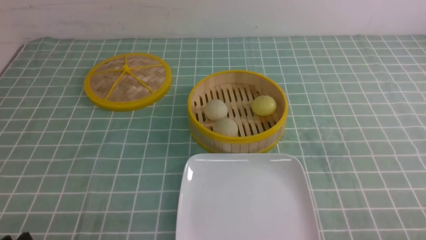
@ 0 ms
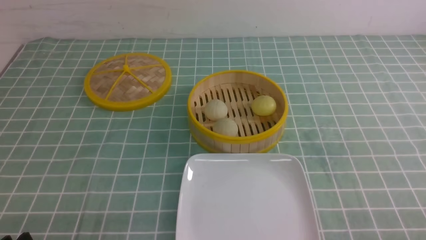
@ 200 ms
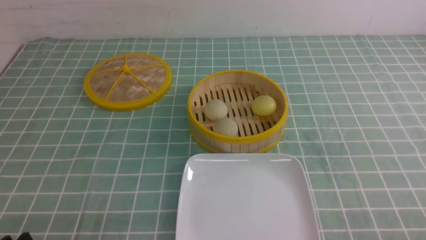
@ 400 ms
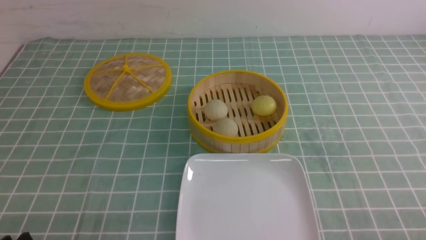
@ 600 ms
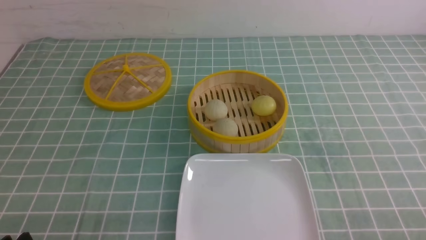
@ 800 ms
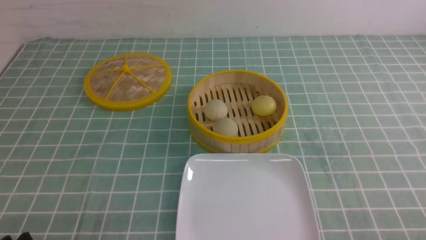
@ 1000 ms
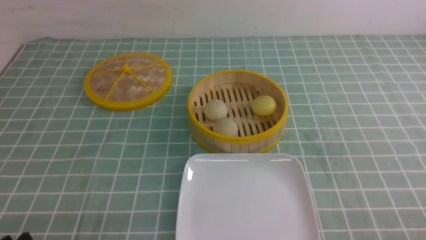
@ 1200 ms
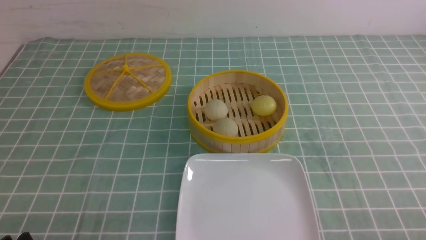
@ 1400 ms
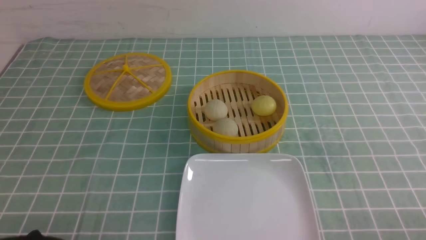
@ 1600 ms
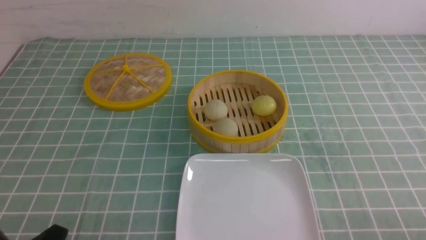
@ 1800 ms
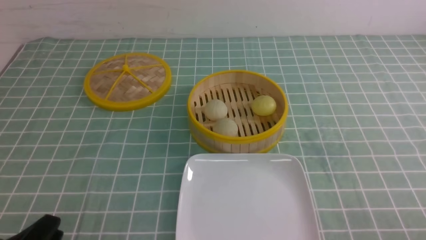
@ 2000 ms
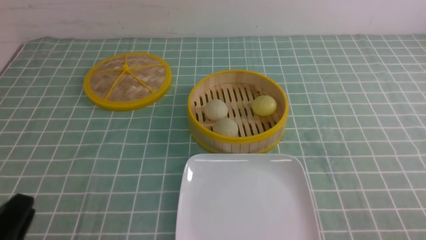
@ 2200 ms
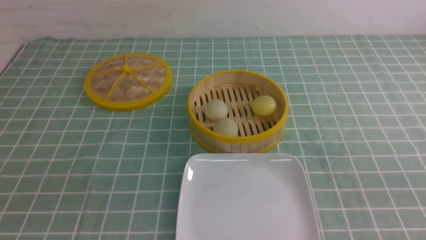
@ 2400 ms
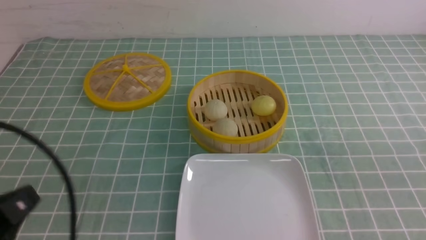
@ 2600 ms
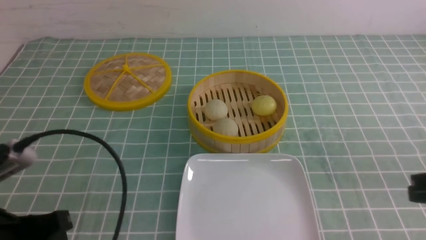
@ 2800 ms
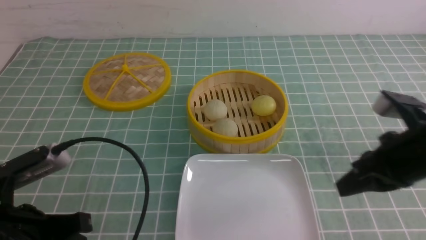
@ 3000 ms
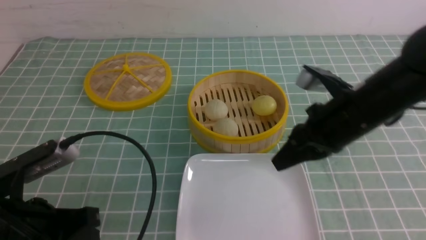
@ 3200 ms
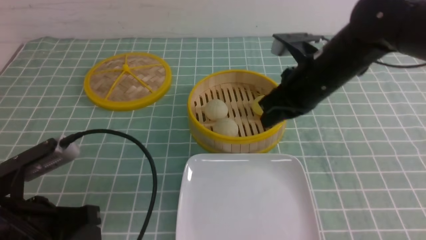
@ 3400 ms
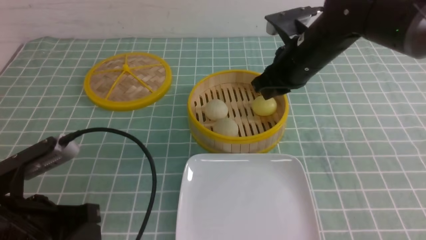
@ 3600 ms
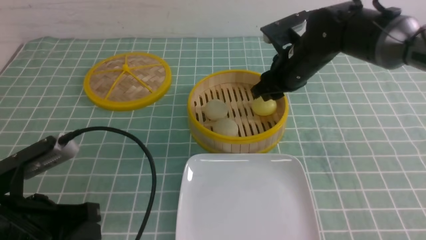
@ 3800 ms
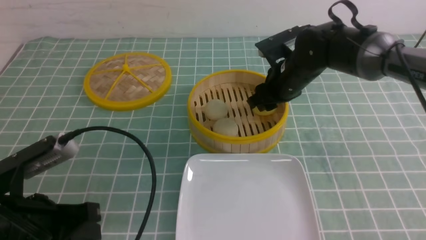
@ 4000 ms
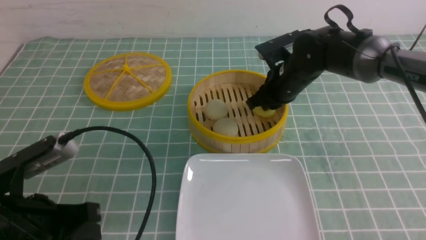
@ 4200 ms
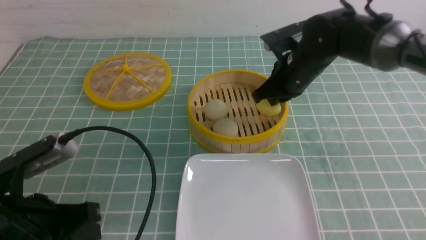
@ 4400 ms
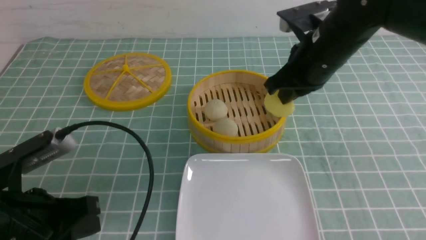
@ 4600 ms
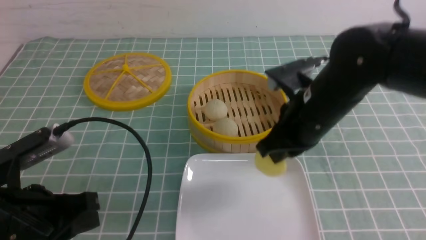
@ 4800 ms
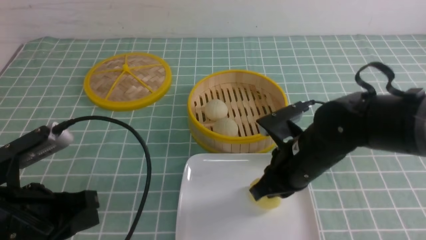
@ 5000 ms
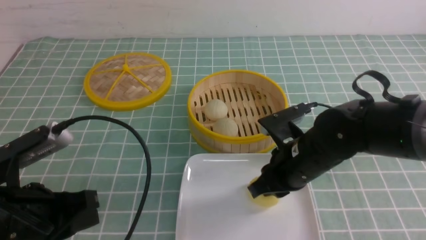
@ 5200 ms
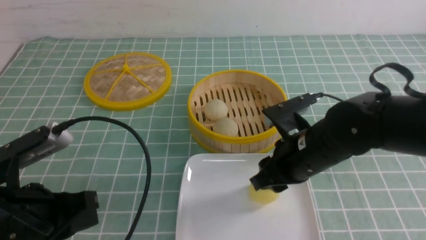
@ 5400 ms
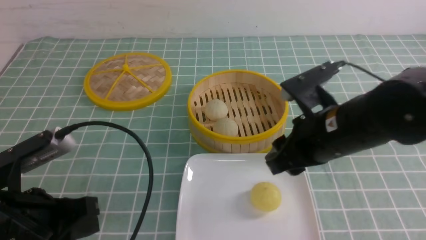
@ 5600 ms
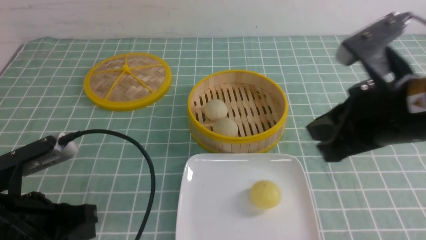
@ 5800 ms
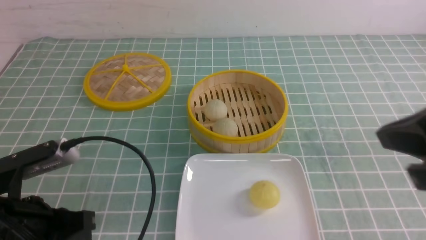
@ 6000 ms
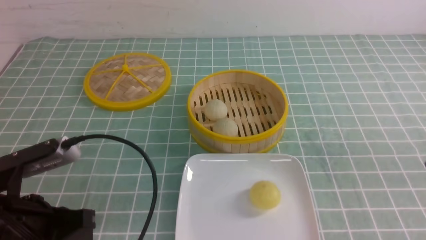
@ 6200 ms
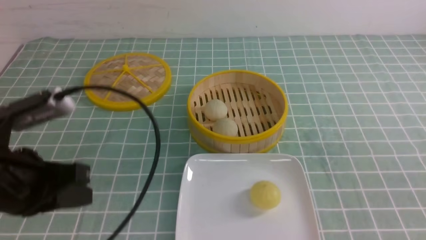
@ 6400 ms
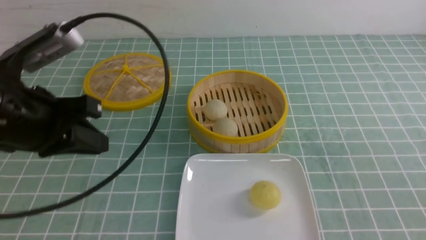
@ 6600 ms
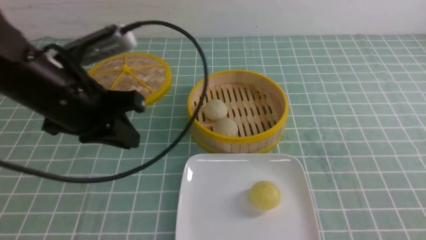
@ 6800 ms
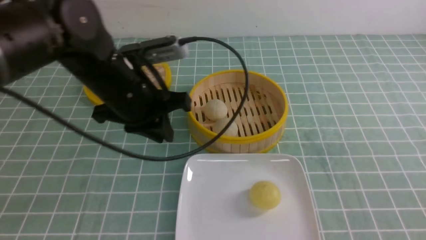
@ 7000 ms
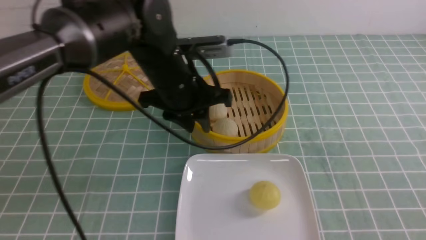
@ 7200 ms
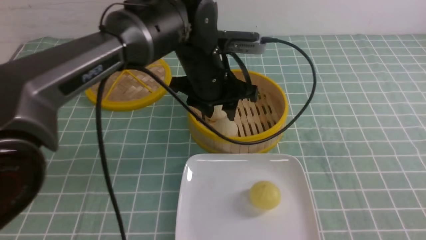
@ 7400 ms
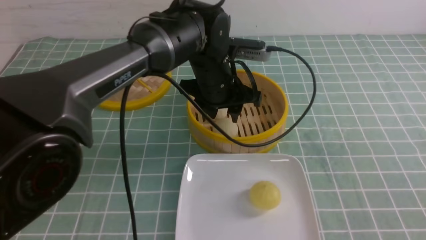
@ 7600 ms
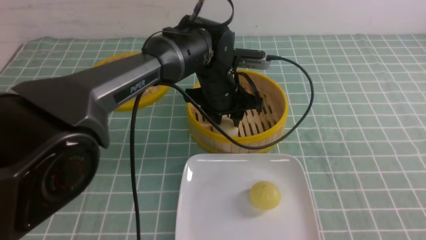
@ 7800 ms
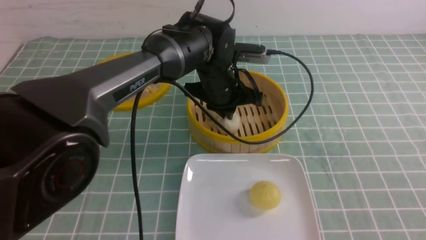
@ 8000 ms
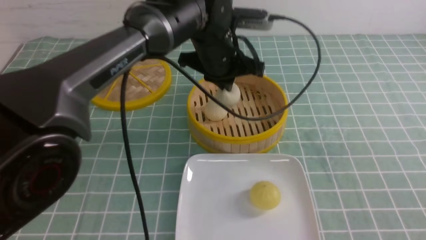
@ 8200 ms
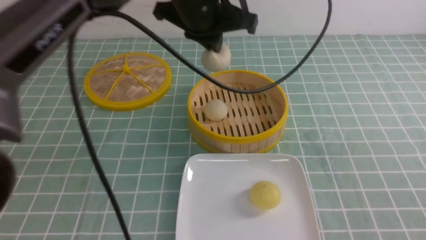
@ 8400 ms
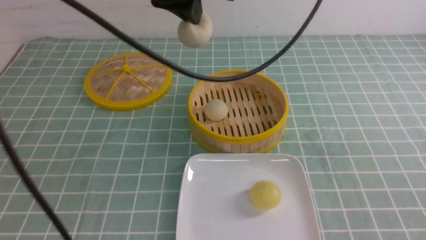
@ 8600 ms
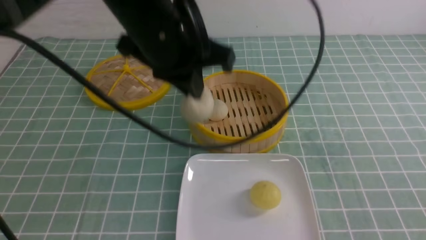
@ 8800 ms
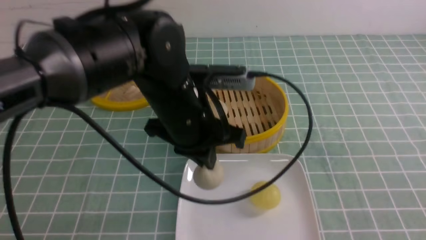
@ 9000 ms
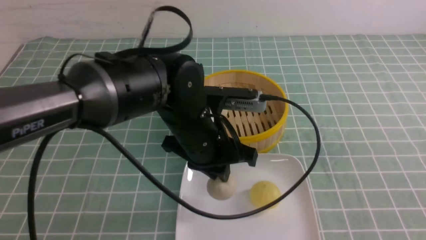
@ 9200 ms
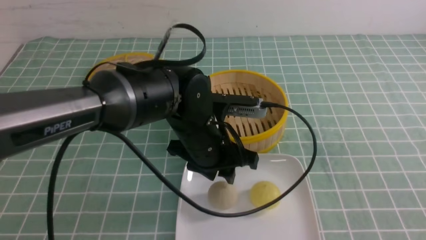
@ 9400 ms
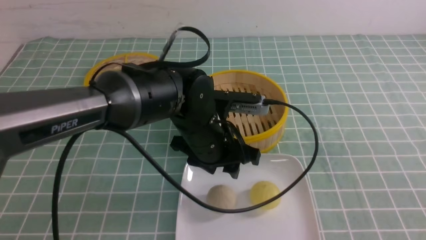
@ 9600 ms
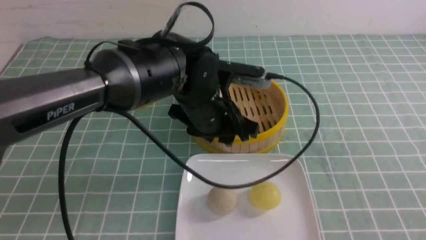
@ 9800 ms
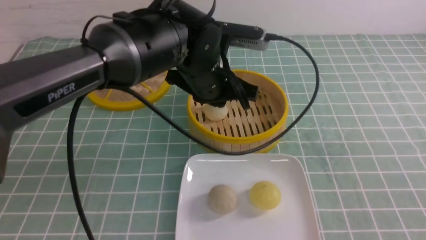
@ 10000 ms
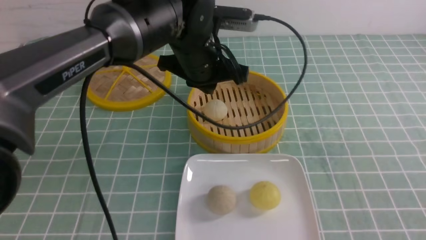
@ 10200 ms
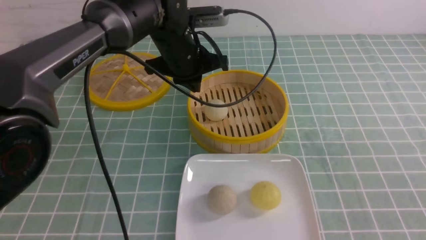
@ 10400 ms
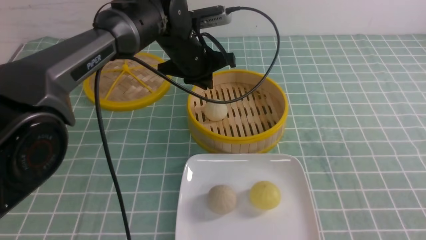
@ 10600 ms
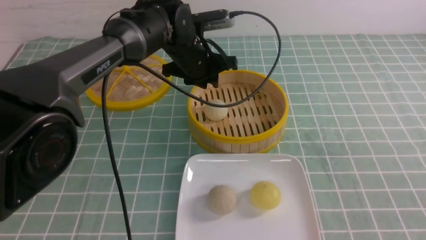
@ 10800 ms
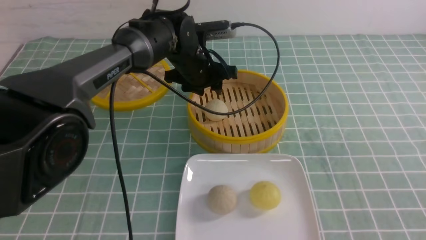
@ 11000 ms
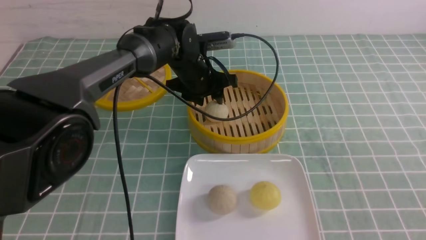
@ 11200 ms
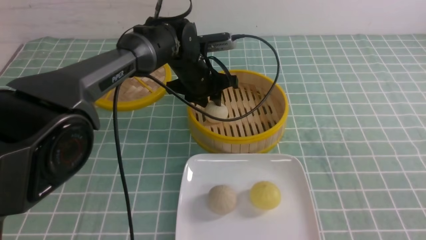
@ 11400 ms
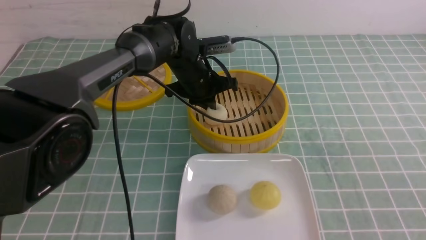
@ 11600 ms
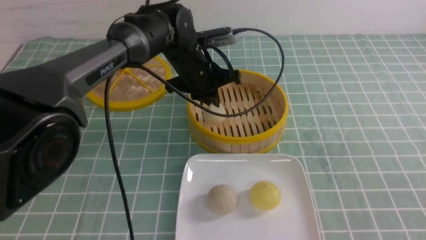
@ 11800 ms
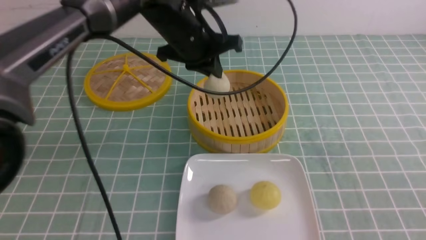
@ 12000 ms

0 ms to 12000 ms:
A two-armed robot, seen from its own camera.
Step, 0 ms to 4200 ms: use the right arm to grab the steamed stuffed bun that is closest to it.
Step, 4400 ms to 5200 ms: use the right arm to put the steamed stuffed bun into the plate.
Step, 5400 ms to 8000 ms: use the left arm to grab the steamed stuffed bun that is closest to it.
Step, 8200 ms to 9200 ms: use the left arm to put the steamed stuffed bun into the plate.
Step, 9400 ms to 11600 ms: use the left arm to grab the steamed stuffed bun that is closest to it.
1600 ms to 3000 ms: The right gripper heads forward, upward and to the left, covering some 20 cm, and closes; the left gripper goes roughly 10 cm forward and upward, and closes.
3000 ms to 4400 ms: The right gripper travels forward and to the left by approximately 20 cm, and opens and closes again.
4400 ms to 6000 ms: The right gripper goes about 30 cm backward and upward, and opens, then closes once more.
6000 ms to 7600 ms: The left gripper travels forward and to the right by approximately 35 cm, and opens its fingers, while the right gripper is displaced downward, backward and to the right by about 10 cm.
7600 ms to 9000 ms: The left gripper heads backward, covering approximately 10 cm, moves approximately 15 cm upward and comes back, and closes its fingers.
9000 ms to 10400 ms: The left gripper goes some 15 cm forward, and opens, then closes again.
10400 ms to 12000 ms: The left gripper ends up about 5 cm from where it was, and opens and closes again.

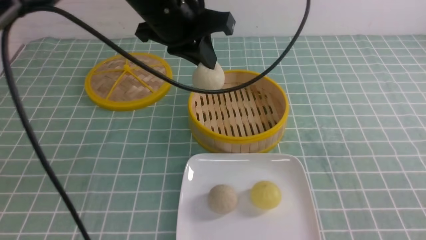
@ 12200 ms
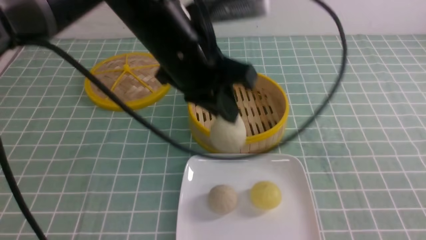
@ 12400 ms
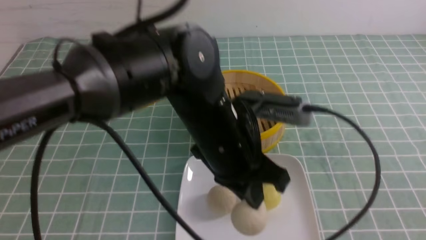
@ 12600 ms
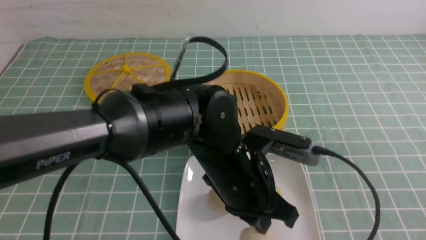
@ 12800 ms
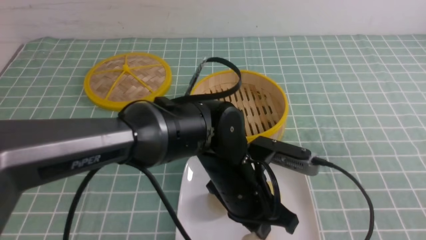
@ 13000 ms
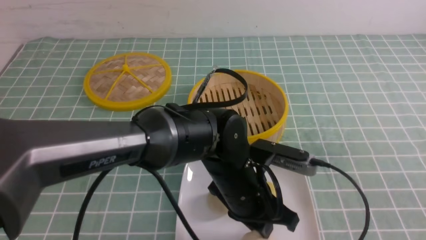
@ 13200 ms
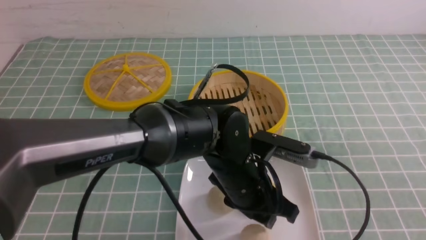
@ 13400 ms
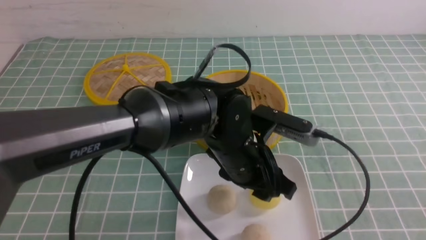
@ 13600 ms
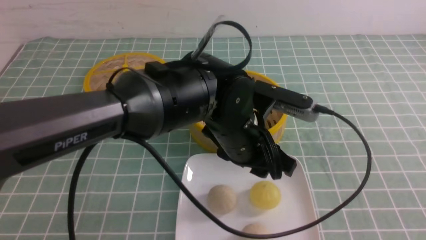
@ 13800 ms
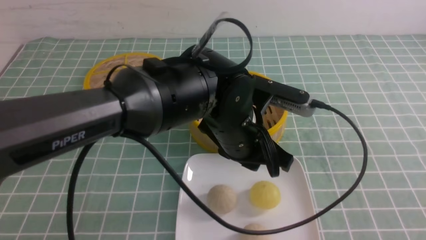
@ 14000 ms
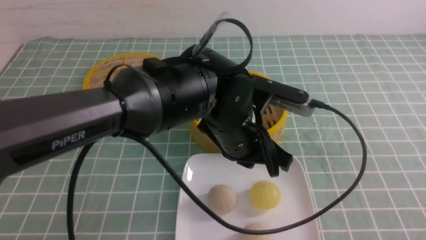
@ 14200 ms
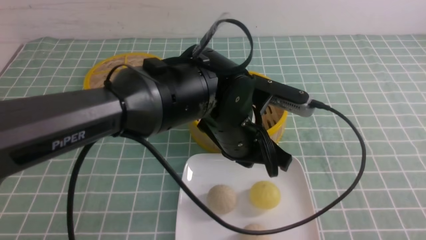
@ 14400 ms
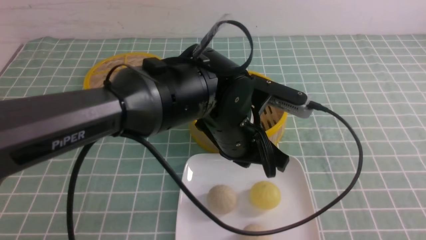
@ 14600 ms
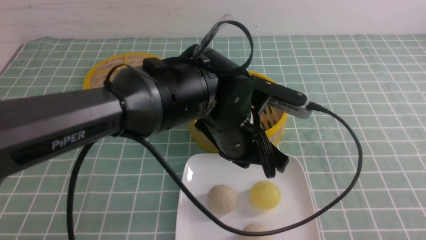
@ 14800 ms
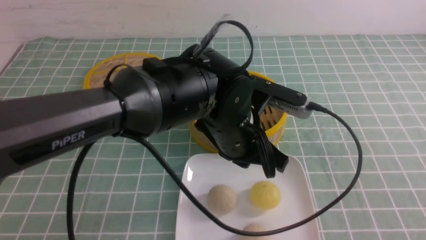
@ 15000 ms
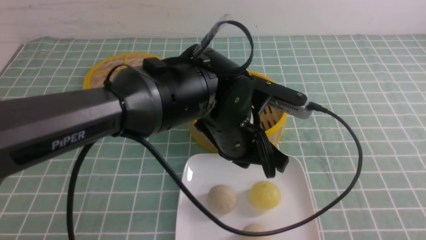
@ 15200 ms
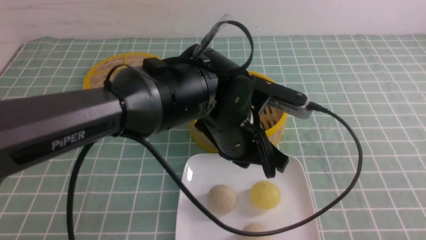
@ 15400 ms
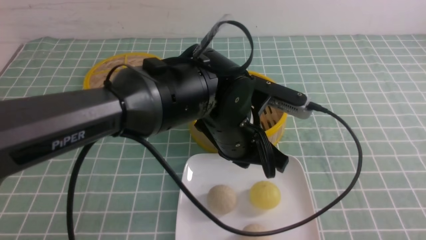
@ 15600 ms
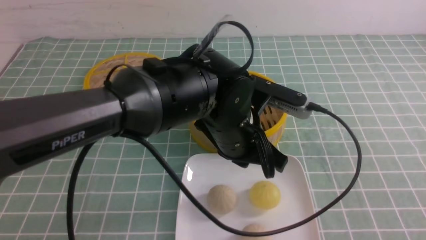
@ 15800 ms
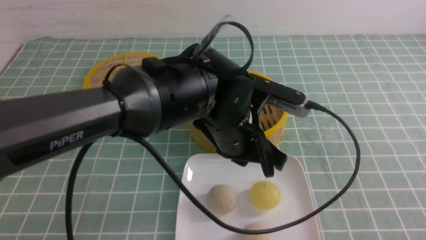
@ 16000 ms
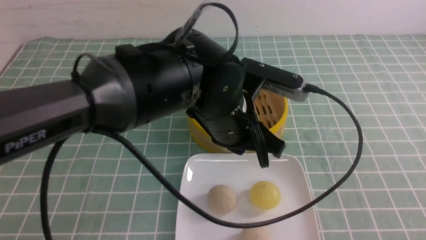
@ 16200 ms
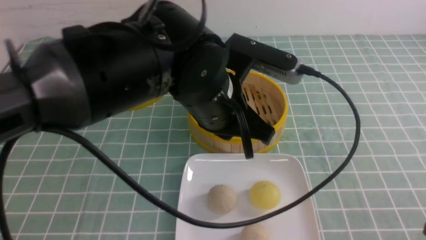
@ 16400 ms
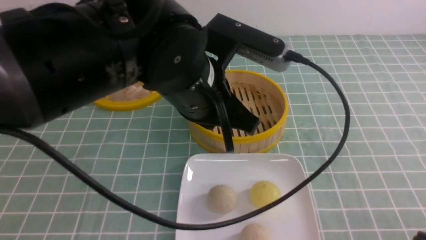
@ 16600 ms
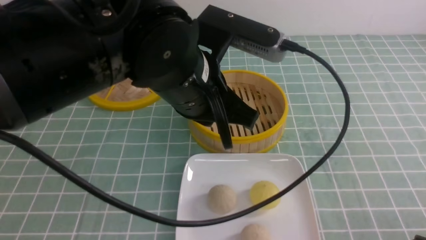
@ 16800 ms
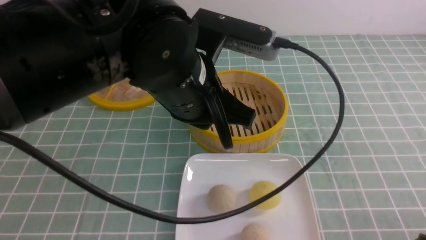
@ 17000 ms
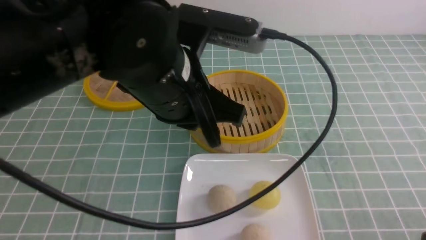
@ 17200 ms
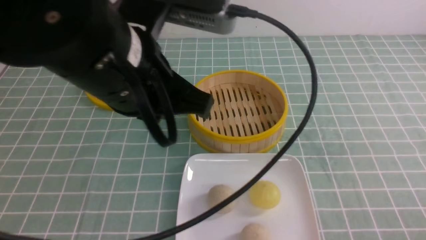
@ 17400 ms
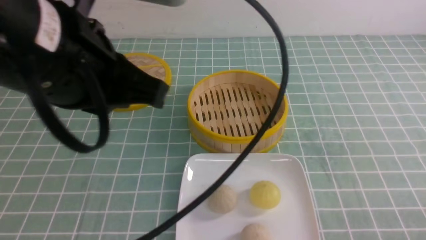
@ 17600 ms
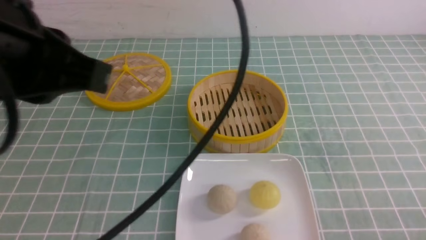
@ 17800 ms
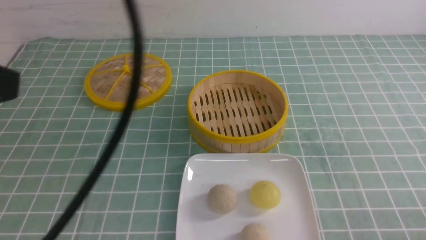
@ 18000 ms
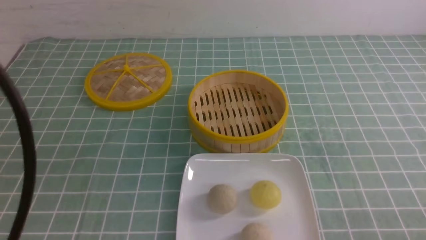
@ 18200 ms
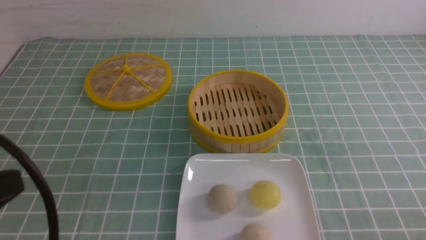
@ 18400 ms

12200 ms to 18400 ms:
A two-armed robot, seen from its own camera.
Step, 12200 ms to 13200 ms: use the left arm to put the steamed stuffed bun into the plate.
12200 ms to 13800 ms: The left gripper is displaced downward, backward and to the right by roughly 15 cm, and opens up.
13800 ms to 15400 ms: The left gripper closes; the right gripper closes its fingers.
15400 ms to 16800 ms: The left gripper travels upward and to the left by roughly 10 cm. Meanwhile the right gripper travels downward by roughly 5 cm.
16800 ms to 18400 ms: The left gripper travels to the left and backward by some 25 cm.